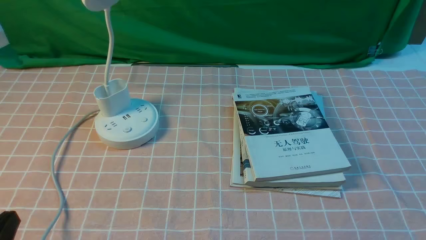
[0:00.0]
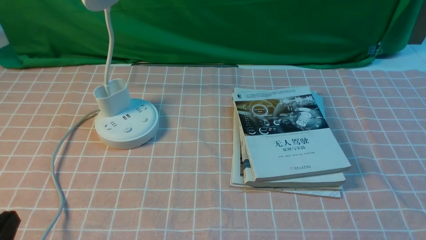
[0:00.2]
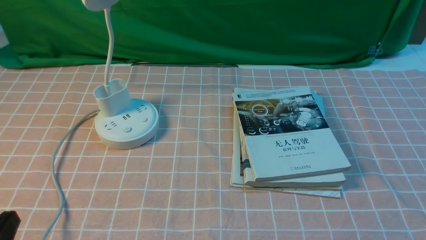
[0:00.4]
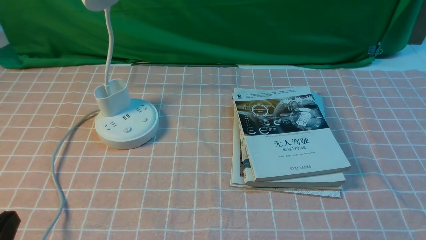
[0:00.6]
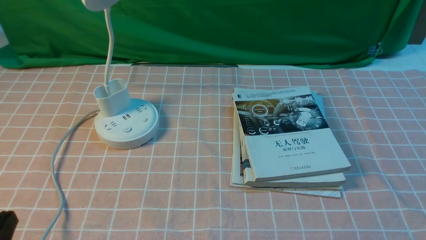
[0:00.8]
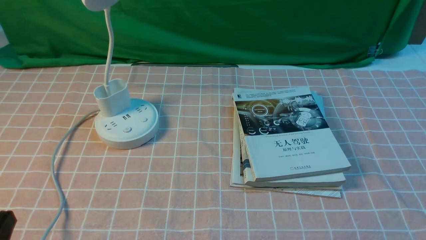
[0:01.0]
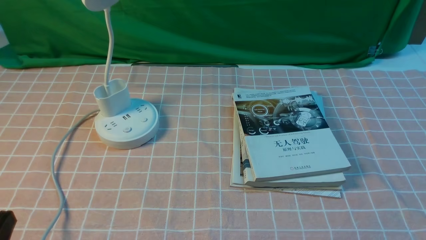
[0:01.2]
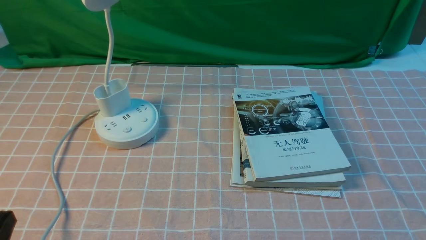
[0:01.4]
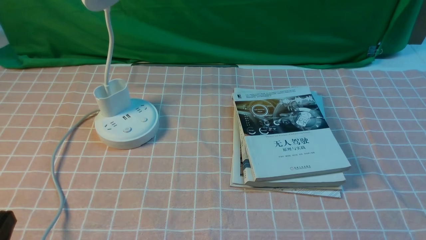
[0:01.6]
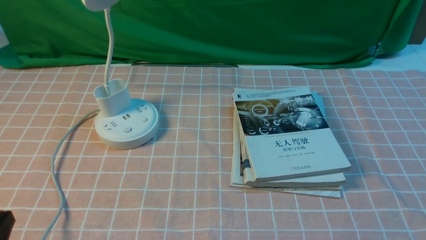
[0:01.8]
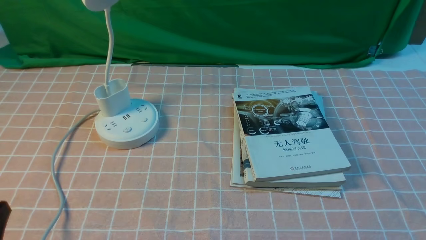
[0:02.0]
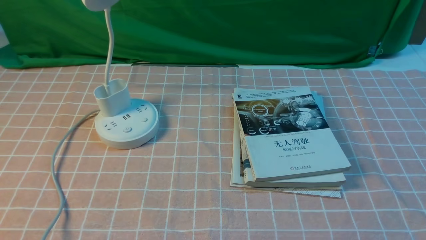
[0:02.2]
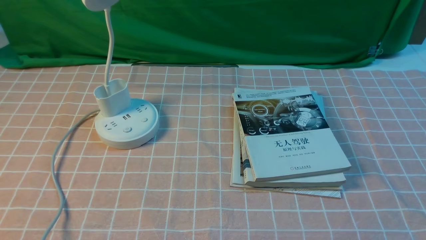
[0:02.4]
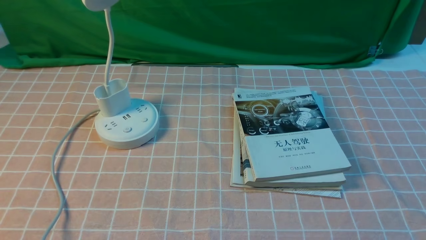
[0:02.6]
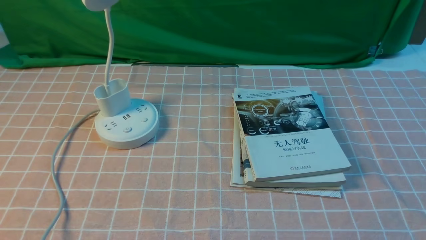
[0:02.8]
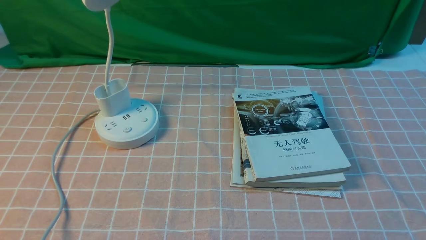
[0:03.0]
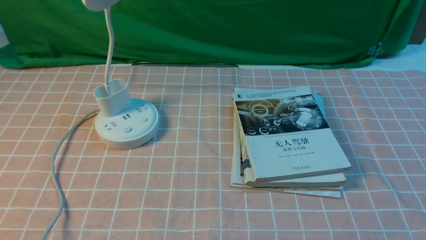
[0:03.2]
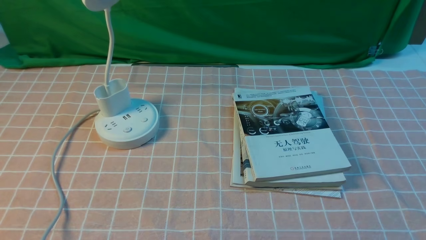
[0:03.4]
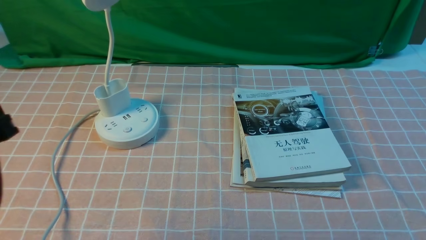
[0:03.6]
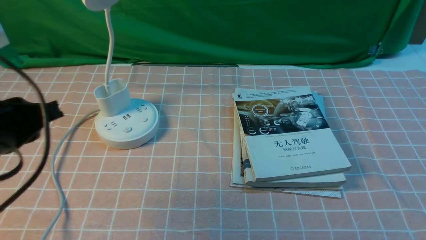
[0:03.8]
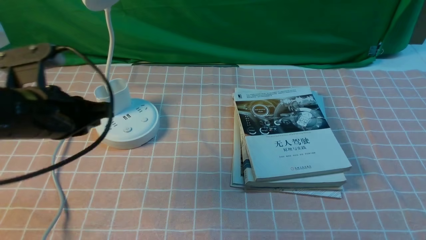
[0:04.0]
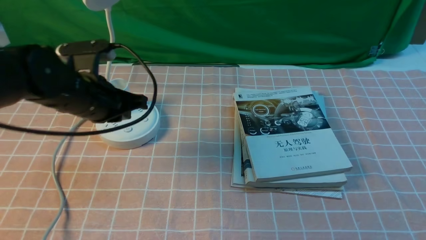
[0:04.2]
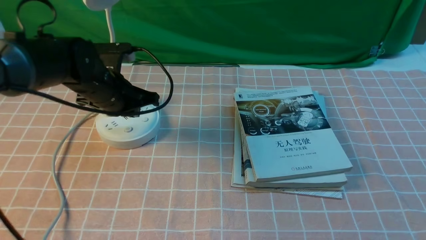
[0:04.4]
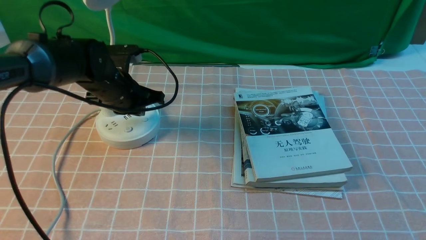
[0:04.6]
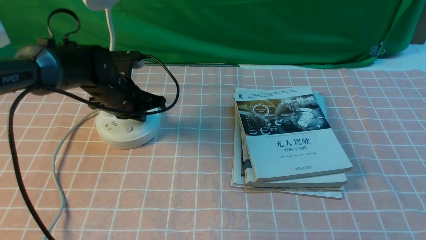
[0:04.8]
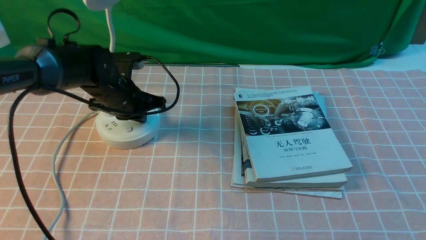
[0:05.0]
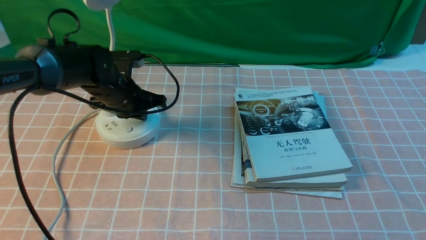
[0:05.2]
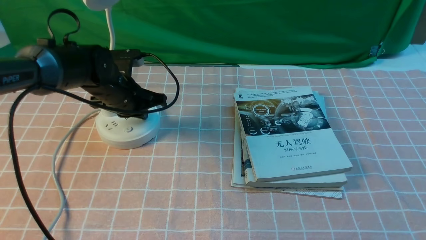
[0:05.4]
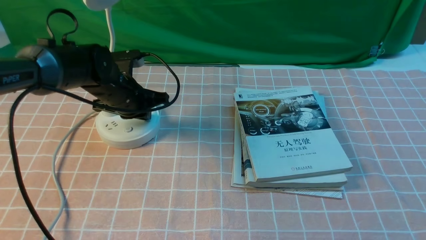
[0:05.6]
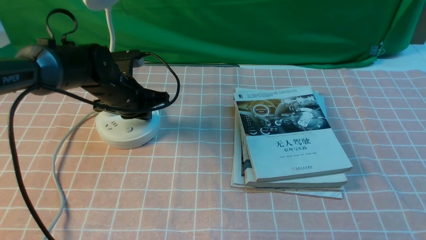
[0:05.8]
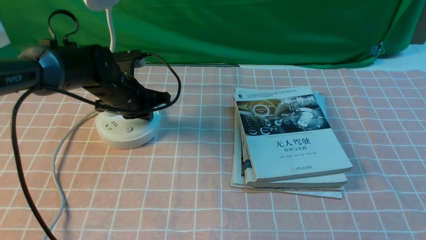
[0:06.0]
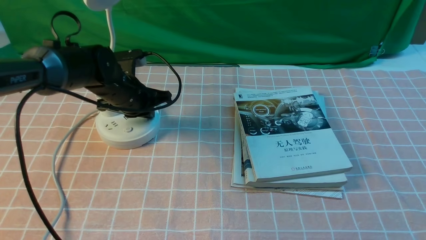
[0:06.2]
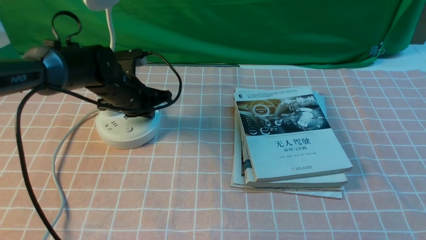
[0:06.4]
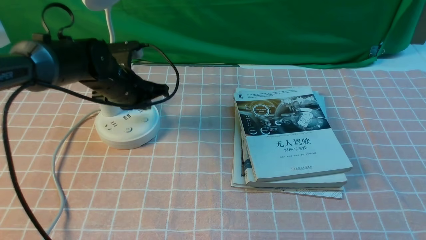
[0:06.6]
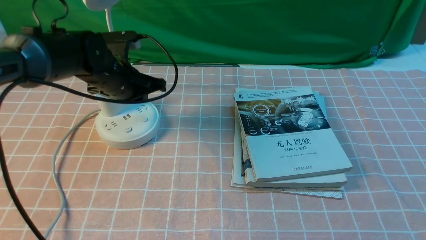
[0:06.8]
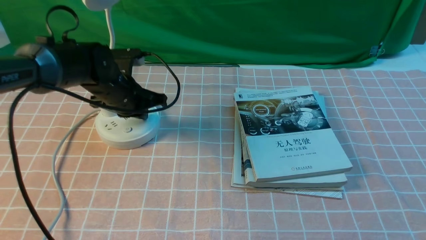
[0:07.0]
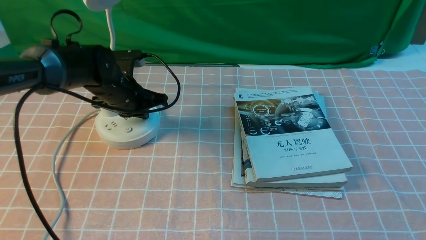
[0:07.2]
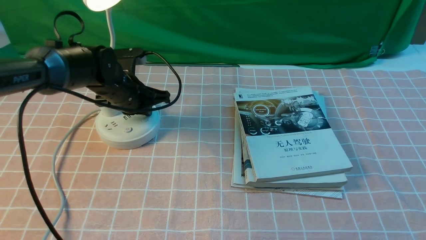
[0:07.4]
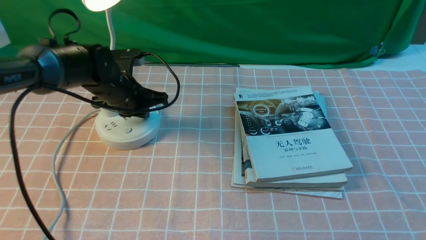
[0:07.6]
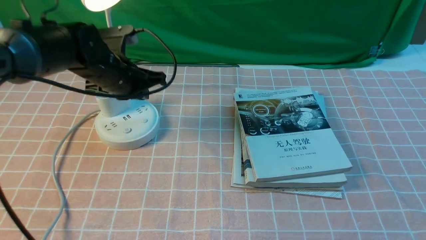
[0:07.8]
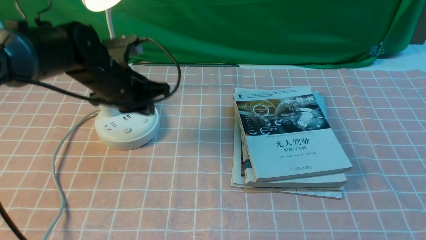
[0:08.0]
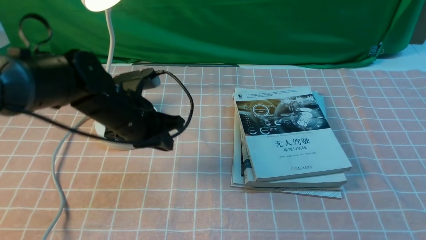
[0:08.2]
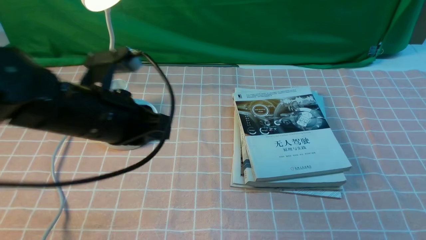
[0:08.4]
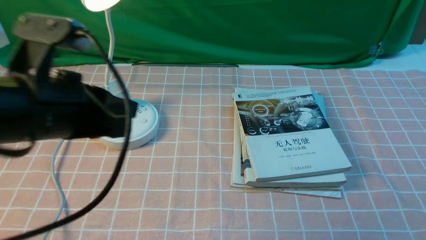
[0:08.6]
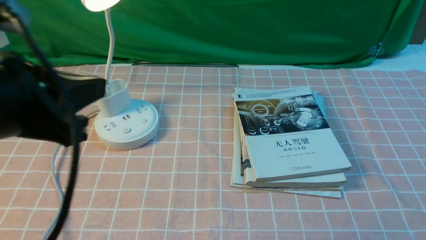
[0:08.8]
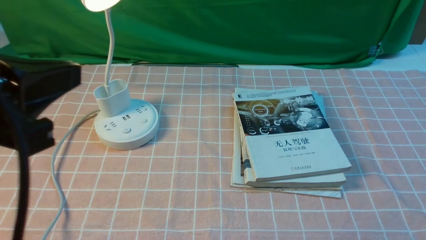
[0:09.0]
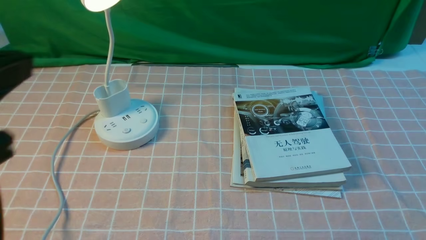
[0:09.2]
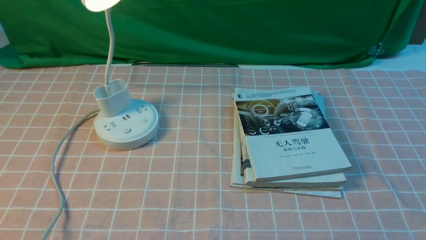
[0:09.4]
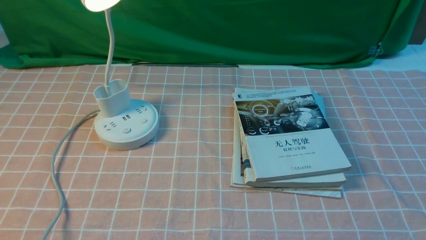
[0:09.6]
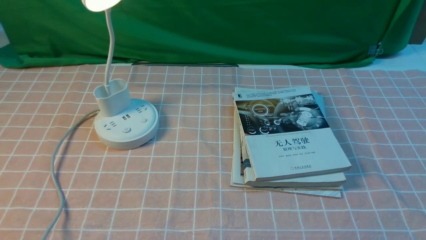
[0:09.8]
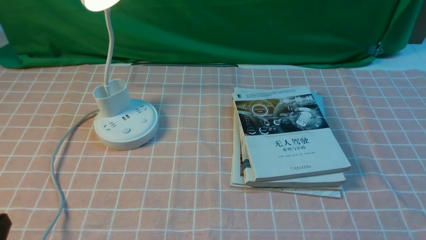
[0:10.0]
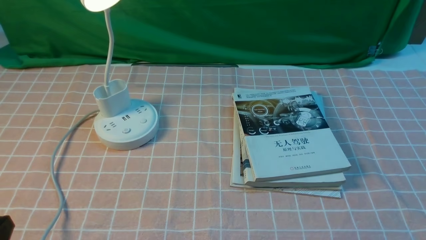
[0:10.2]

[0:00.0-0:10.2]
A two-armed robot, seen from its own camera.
Step, 0:00.0 to 0:07.6: use the left arm to press the button switch on the lamp holder.
0:03.0 to 0:04.4: The left gripper travels forward by approximately 35 cm.
0:04.4 to 0:05.8: The left gripper heads forward and downward, covering roughly 10 cm.
0:05.8 to 0:07.2: The grippers move only a little.
0:07.2 to 0:08.8: The left gripper heads backward and upward, covering about 30 cm.
0:08.8 to 0:10.2: The left gripper goes roughly 25 cm downward, backward and to the left.

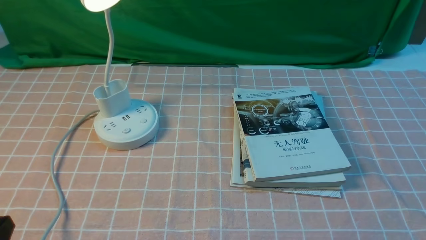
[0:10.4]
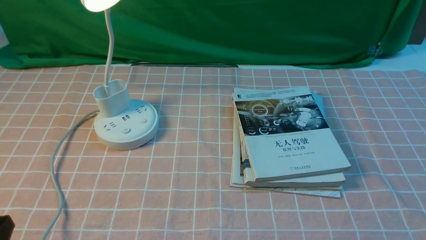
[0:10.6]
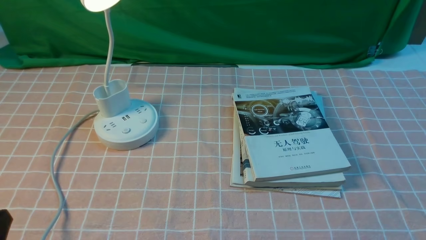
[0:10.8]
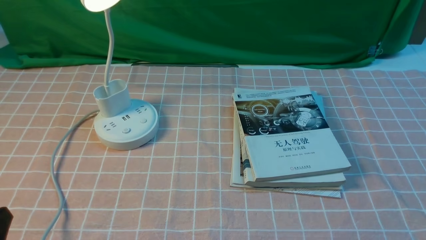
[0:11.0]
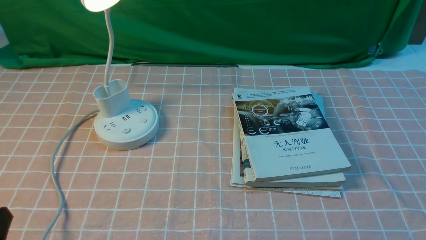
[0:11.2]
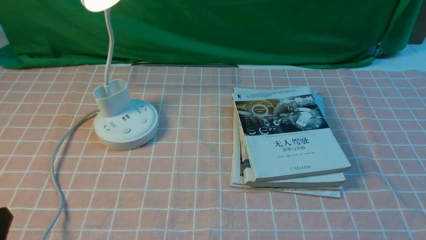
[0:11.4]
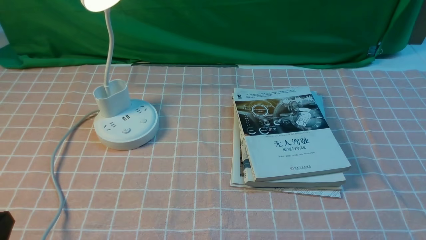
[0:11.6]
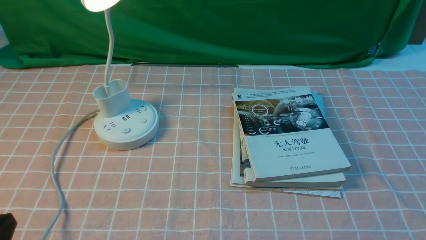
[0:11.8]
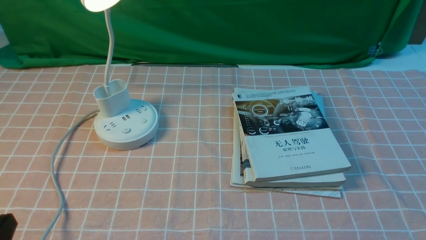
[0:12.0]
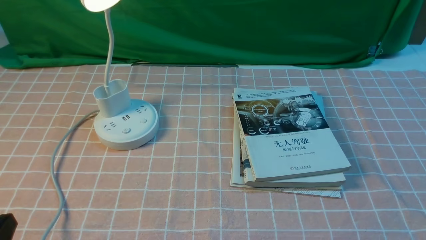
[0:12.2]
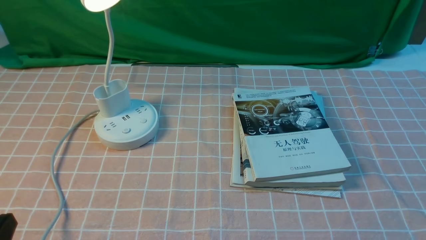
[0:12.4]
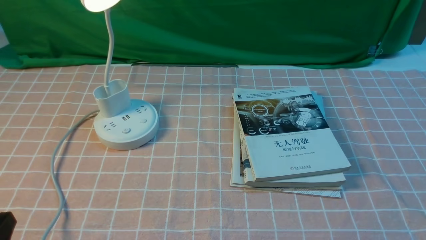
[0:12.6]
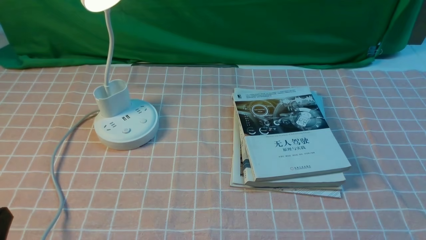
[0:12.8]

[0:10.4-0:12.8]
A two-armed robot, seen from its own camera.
0:10.4 to 0:12.8: Both grippers stay put.
